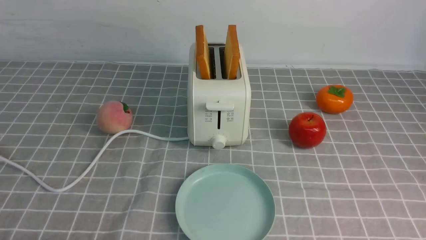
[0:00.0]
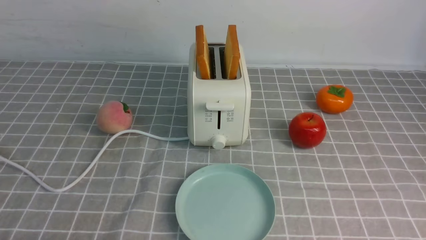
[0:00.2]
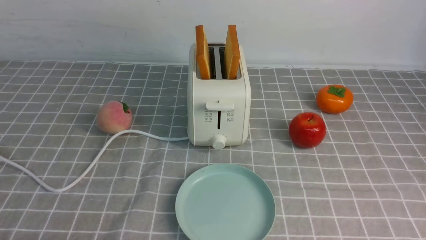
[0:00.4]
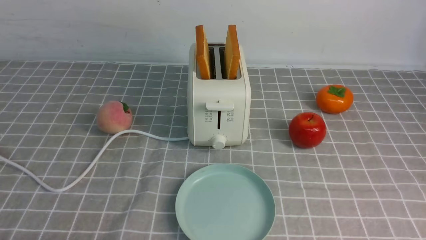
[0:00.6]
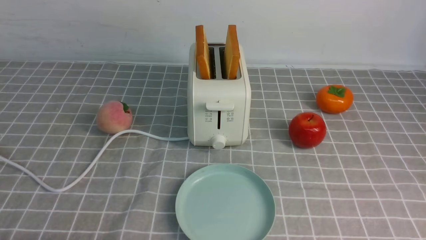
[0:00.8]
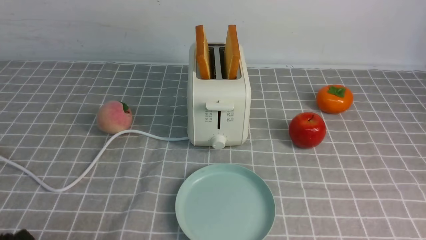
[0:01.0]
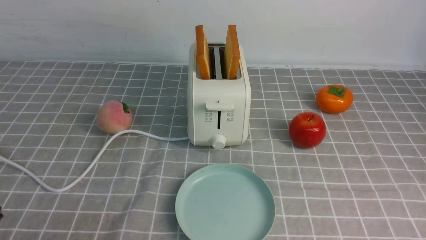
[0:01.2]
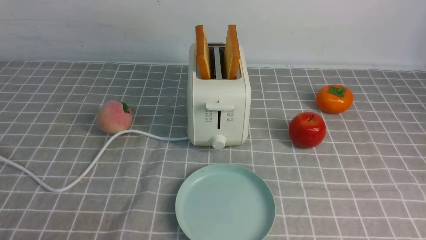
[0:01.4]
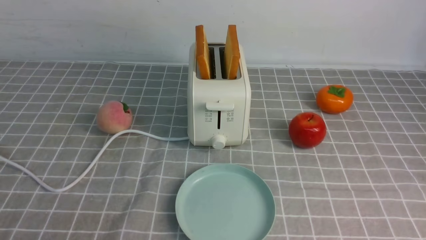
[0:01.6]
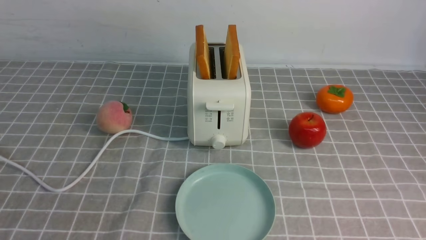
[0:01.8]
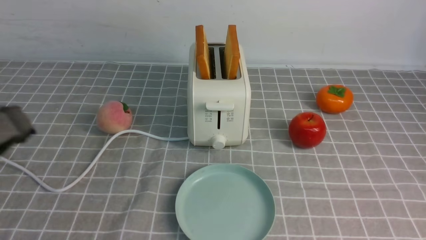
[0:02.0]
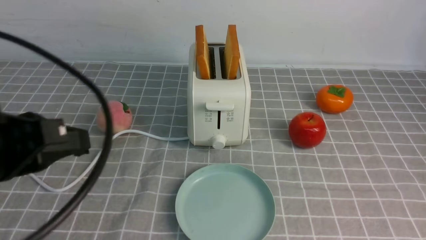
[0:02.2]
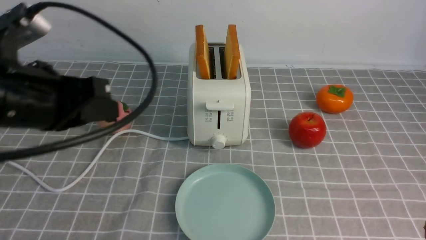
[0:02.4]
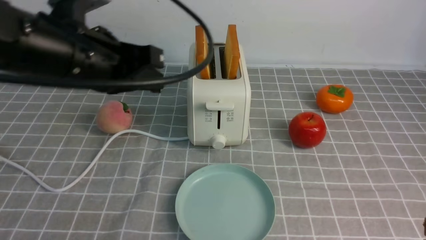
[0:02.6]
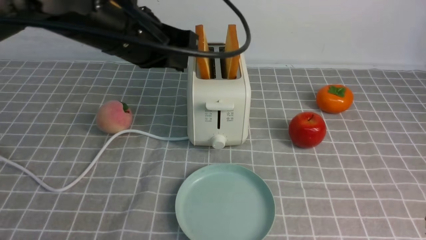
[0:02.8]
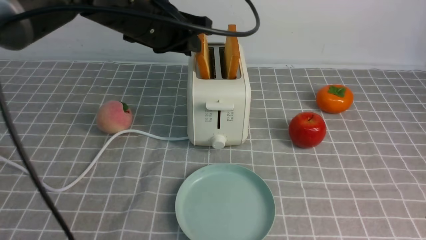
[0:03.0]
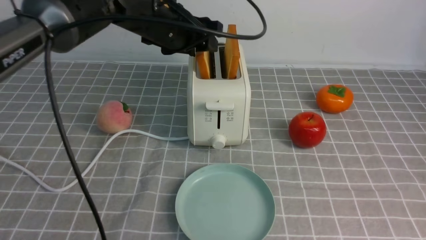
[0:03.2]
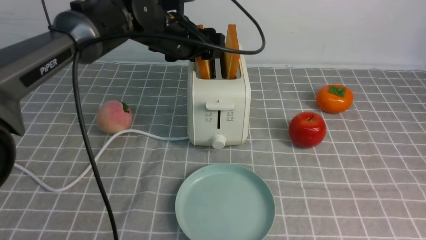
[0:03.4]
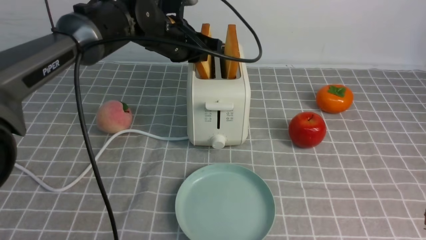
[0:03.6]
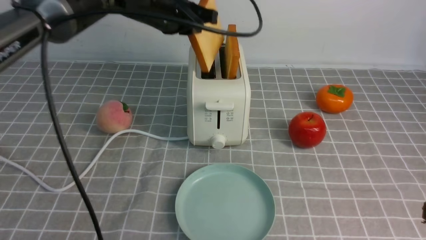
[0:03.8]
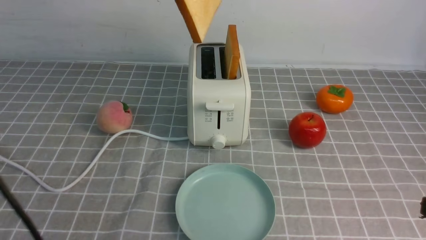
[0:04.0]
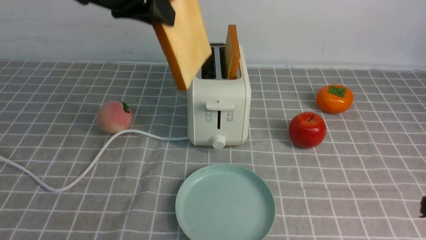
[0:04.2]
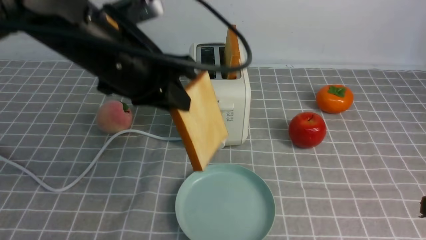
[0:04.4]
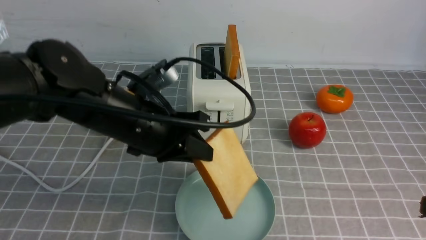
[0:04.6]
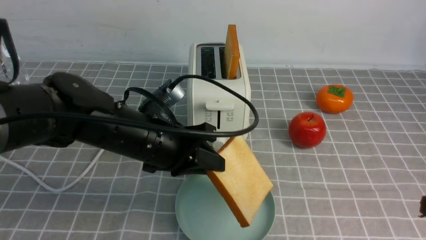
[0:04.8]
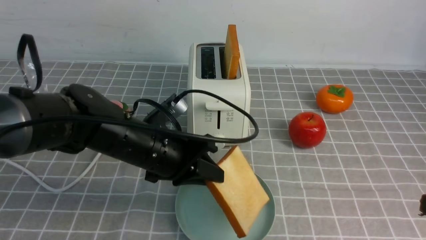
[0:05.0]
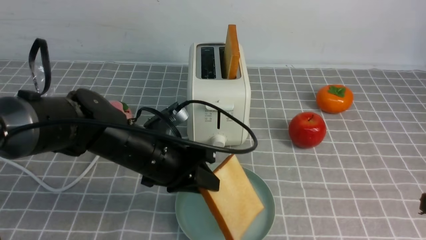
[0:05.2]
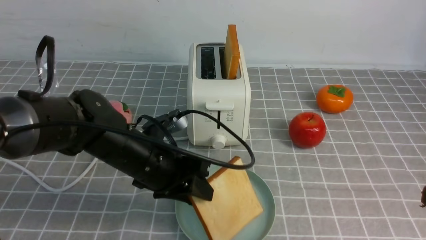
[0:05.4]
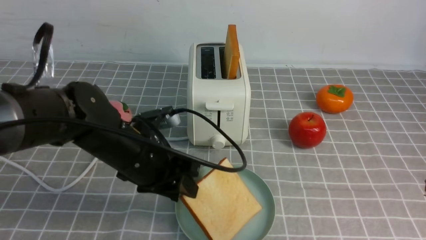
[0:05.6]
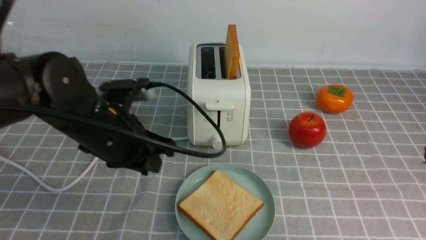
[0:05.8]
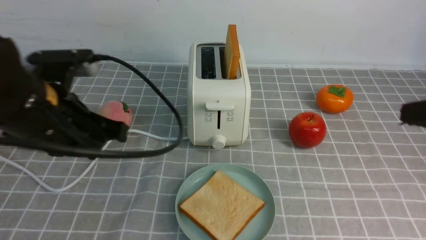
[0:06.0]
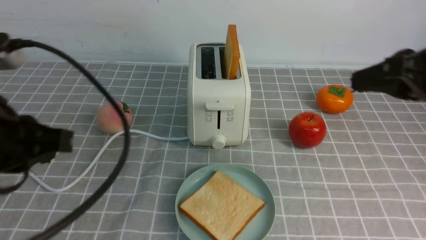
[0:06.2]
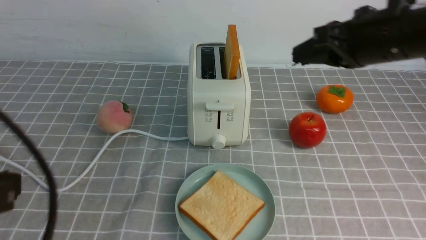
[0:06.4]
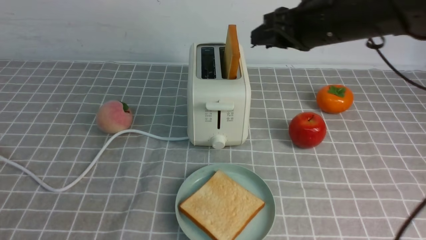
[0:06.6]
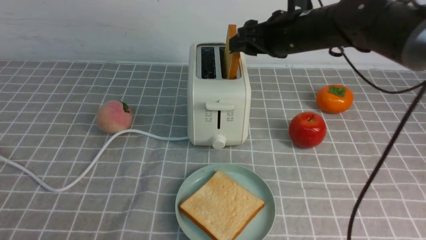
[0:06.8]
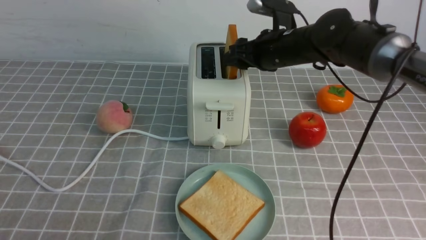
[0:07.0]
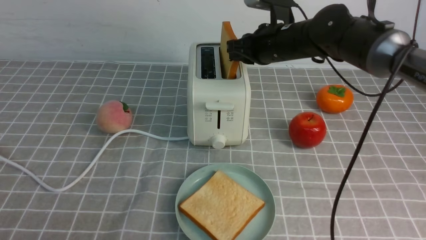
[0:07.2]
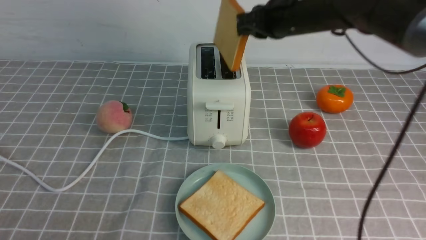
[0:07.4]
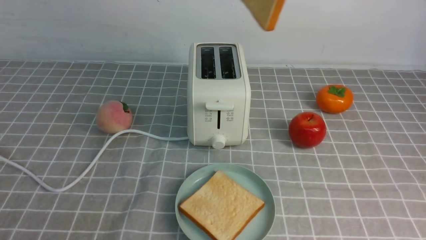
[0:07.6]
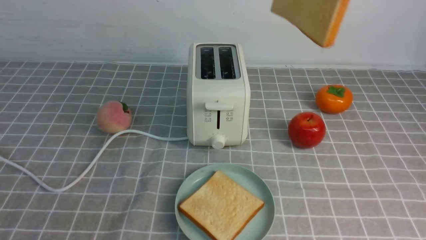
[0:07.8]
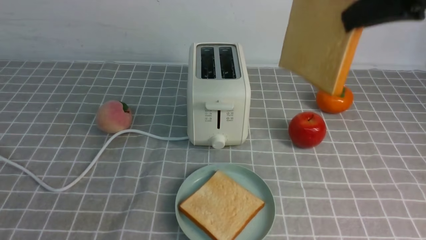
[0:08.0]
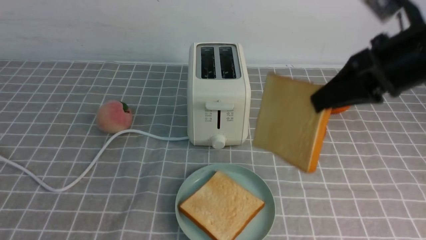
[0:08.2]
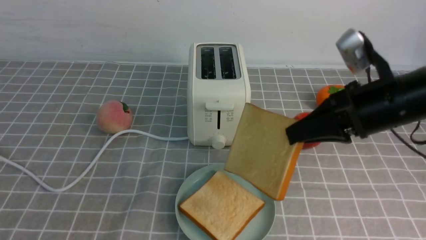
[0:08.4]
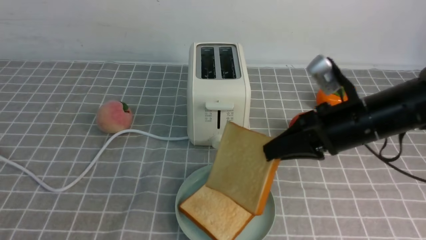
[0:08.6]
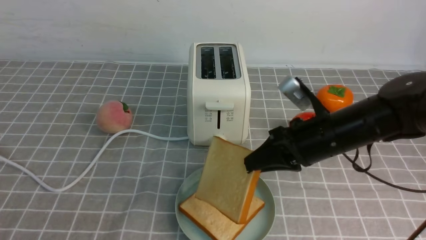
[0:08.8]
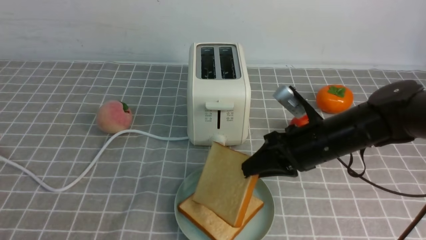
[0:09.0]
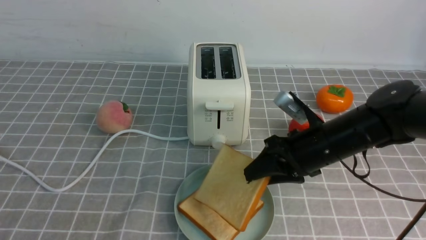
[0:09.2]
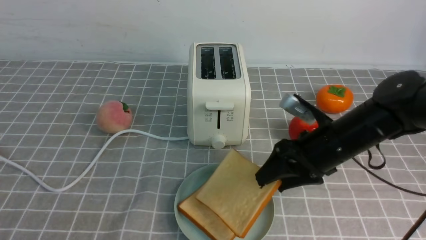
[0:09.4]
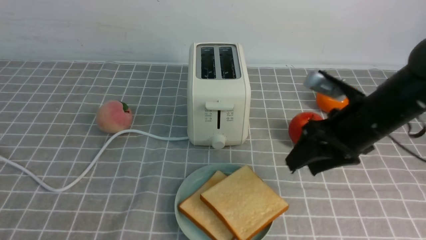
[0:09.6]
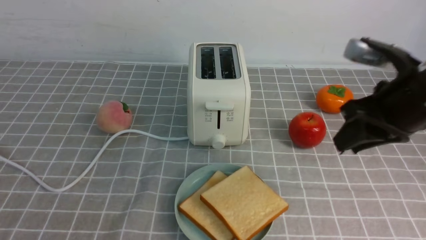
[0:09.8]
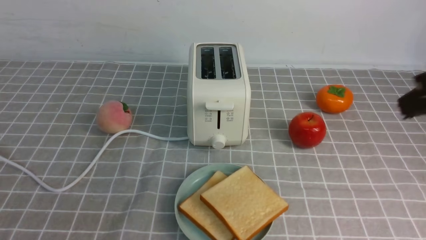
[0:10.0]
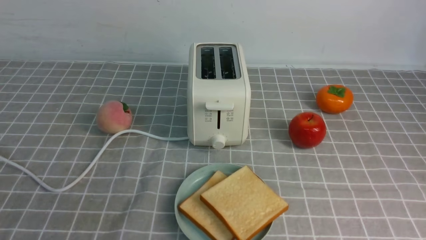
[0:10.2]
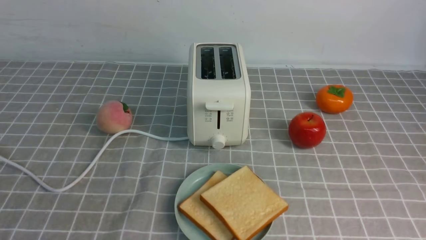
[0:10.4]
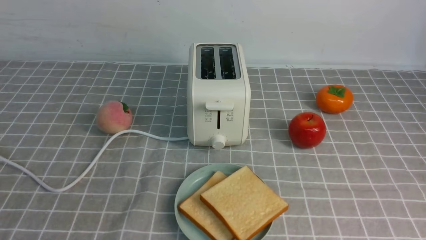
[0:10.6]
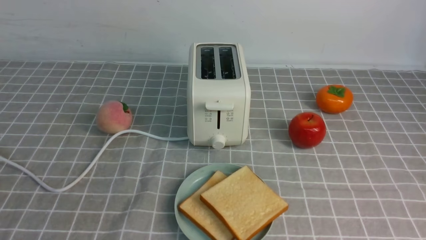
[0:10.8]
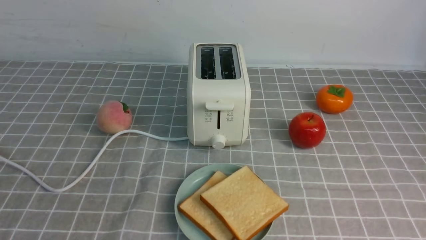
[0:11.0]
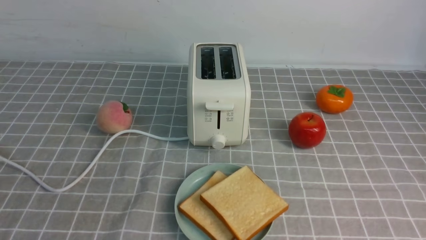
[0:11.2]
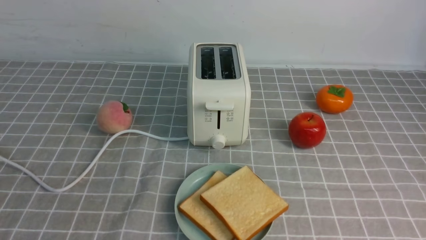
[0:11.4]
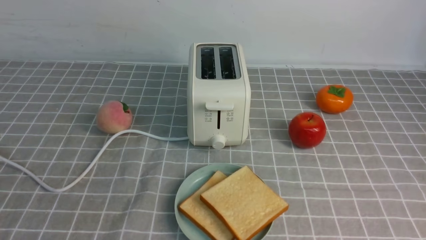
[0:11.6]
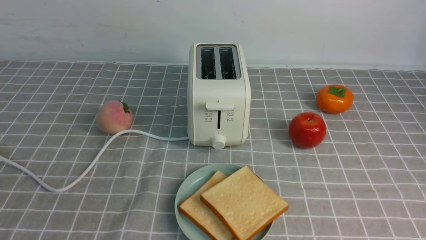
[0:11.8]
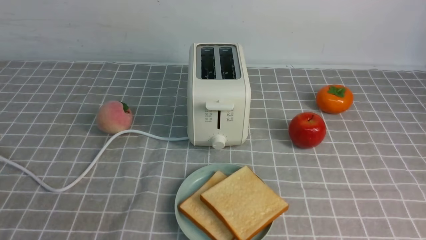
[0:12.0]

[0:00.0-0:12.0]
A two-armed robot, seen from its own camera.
Task of the whole recording: take toasted bread from bread machine on grey coffee table place on plate.
Step, 0:00.0 to 0:03.8: use the left arm to take out a slice of bread.
Step, 0:04.0 to 0:05.8: use the left arm to put a slice of bread into the empty plate.
Step, 0:06.0 to 0:07.4: use the right arm to take out a slice of bread.
Step, 0:07.6 to 0:09.6: use the right arm to put a slice of bread into the plate.
0:01.6 to 0:03.0: The left gripper moves forward and to the right, about 40 cm, and opens its fingers, while the right gripper goes about 10 cm upward and forward, and closes.
0:03.0 to 0:04.4: The left gripper travels backward by roughly 10 cm, and closes its fingers.
0:04.4 to 0:06.0: The left gripper shifts approximately 10 cm backward and to the left, reaches about 15 cm downward, then returns, and opens, then closes once more. The right gripper goes approximately 10 cm upward and forward.
0:06.0 to 0:07.6: The right gripper moves forward, upward and to the left, some 20 cm, and opens, then closes once more; the left gripper is displaced backward and to the left by about 20 cm.
0:07.6 to 0:09.0: The right gripper goes some 25 cm downward, and opens.
0:09.0 to 0:10.4: The right gripper shifts some 35 cm backward, upward and to the right, and closes.

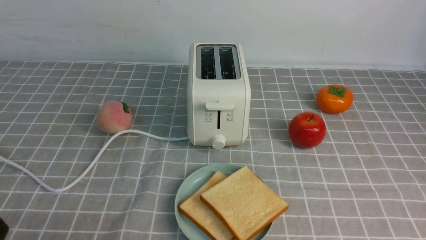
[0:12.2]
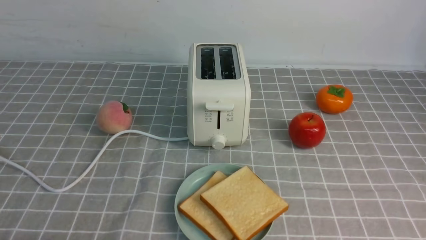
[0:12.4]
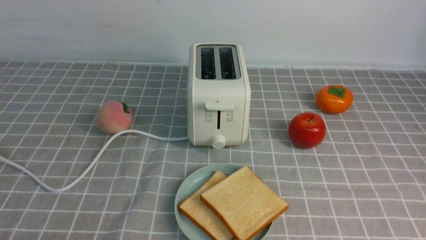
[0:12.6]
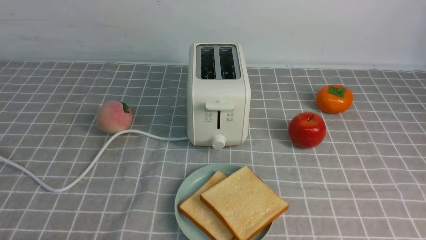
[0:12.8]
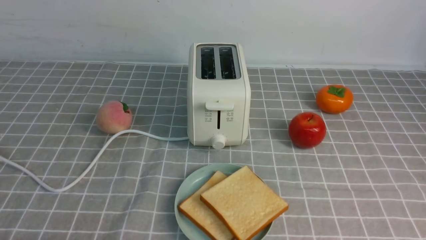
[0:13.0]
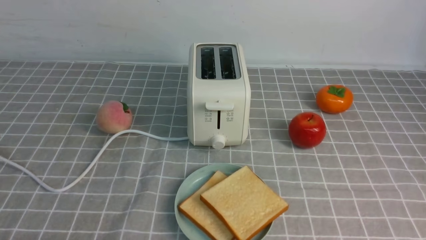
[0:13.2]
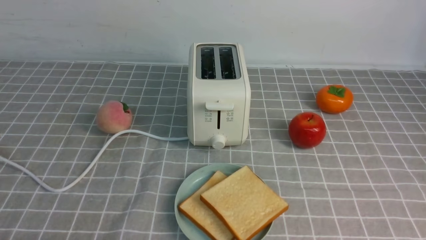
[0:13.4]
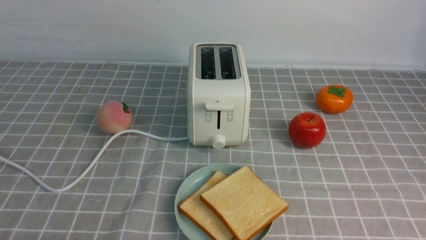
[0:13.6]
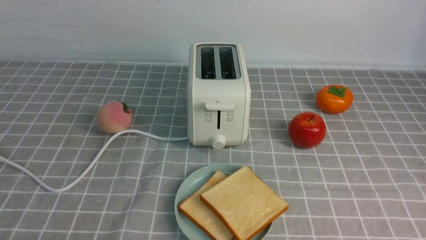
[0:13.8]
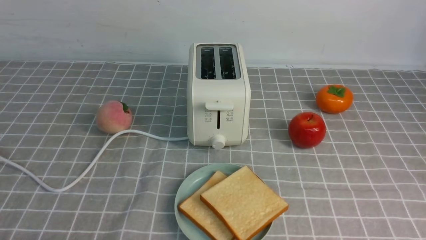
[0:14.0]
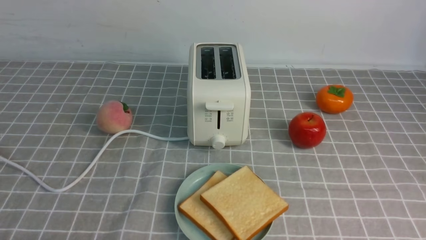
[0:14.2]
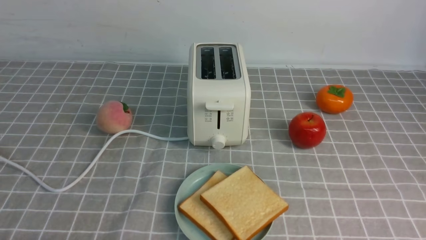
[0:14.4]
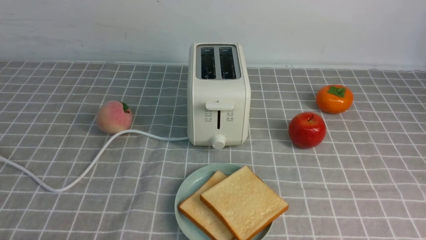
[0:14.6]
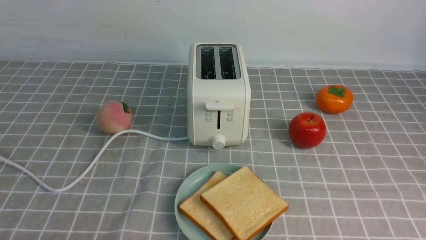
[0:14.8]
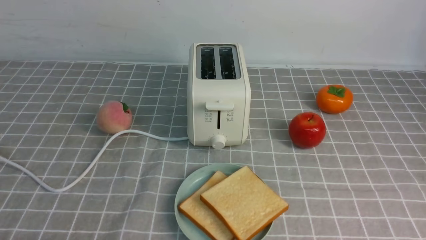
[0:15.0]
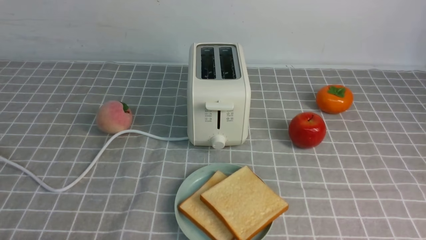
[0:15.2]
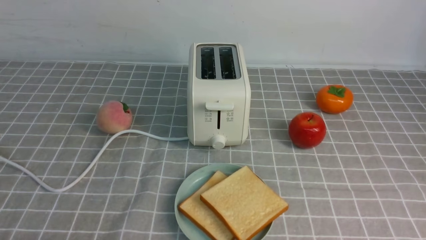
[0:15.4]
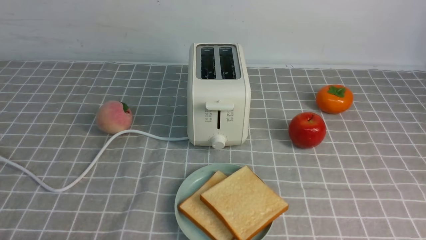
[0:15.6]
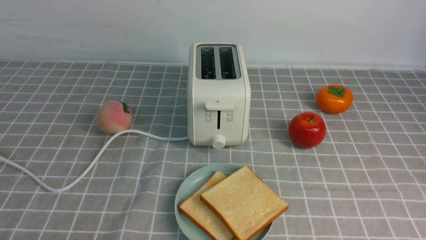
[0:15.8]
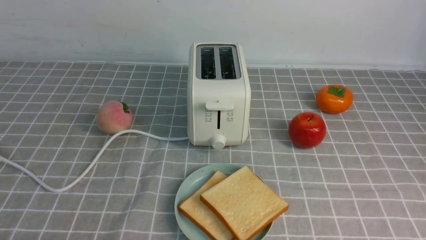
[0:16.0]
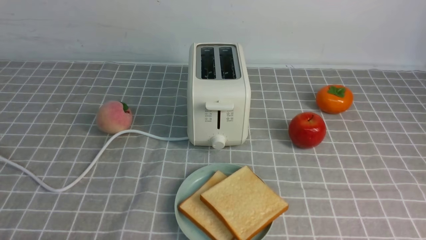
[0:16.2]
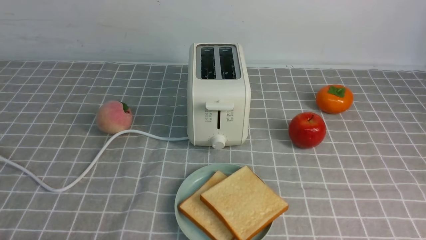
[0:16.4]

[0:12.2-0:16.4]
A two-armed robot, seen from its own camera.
Task of the whole recording: take toasted bread from bread machine on grey coffee table place on plate.
0:15.0 to 0:16.4: The two grippers keep their place.
